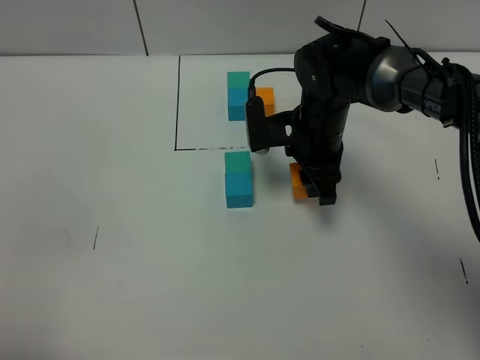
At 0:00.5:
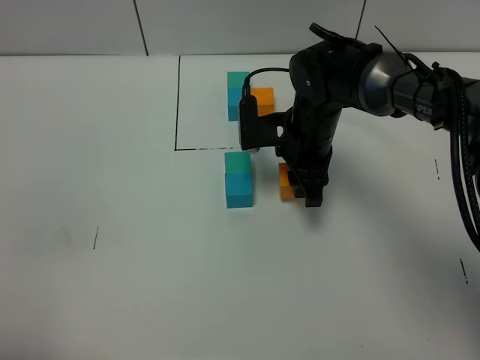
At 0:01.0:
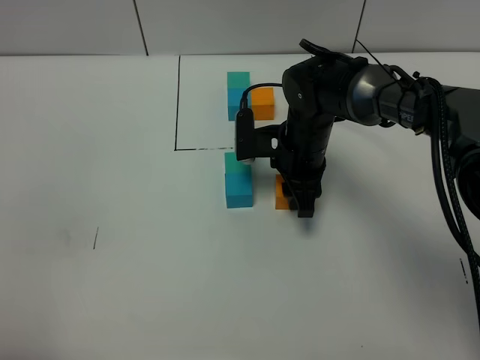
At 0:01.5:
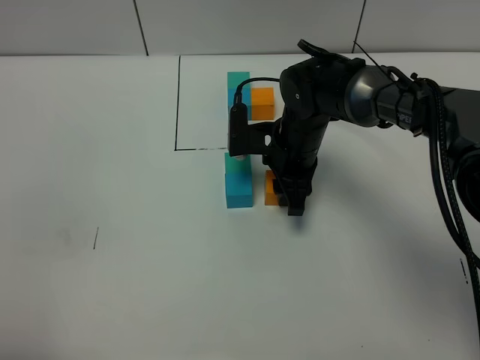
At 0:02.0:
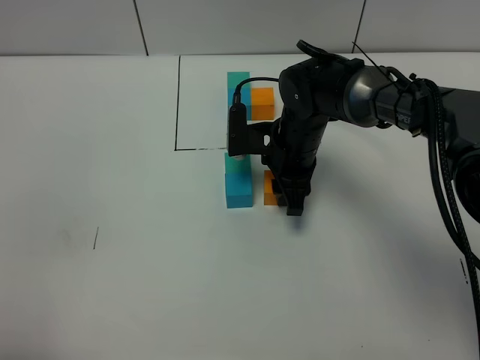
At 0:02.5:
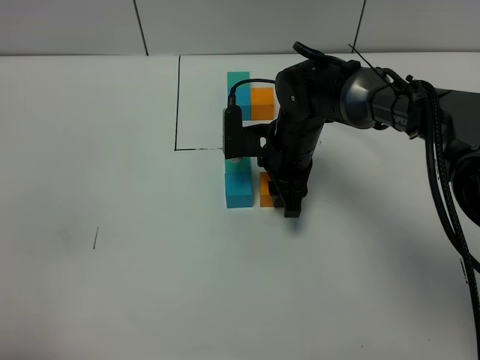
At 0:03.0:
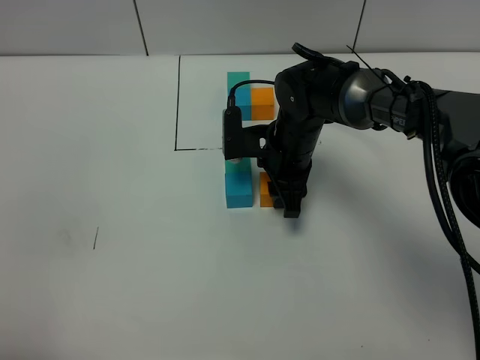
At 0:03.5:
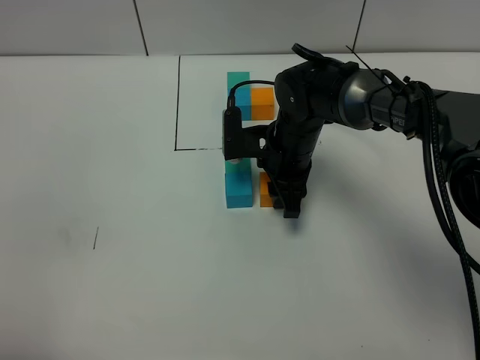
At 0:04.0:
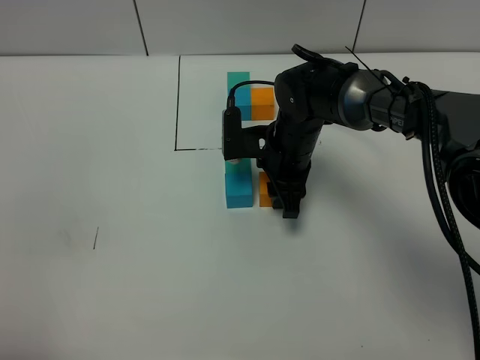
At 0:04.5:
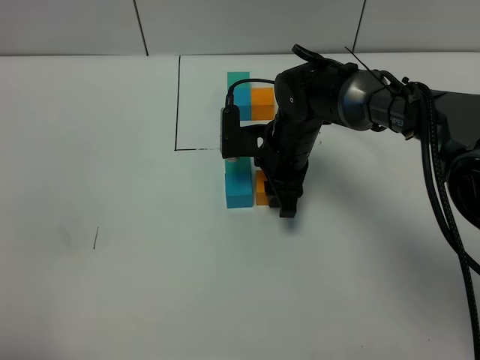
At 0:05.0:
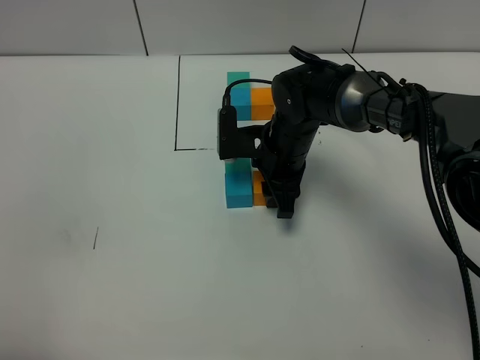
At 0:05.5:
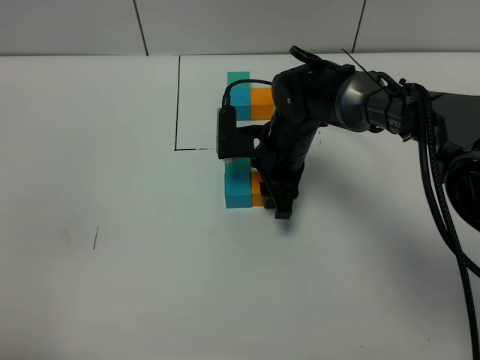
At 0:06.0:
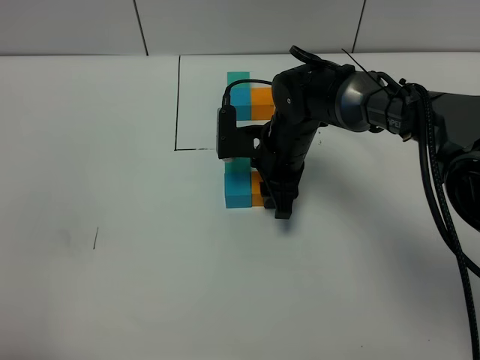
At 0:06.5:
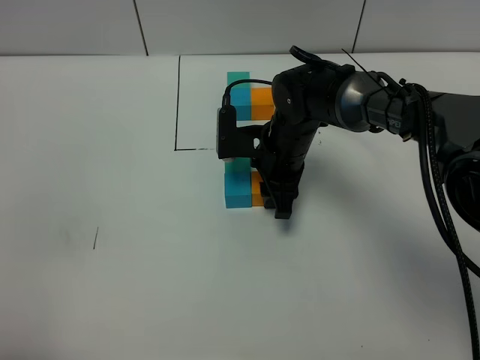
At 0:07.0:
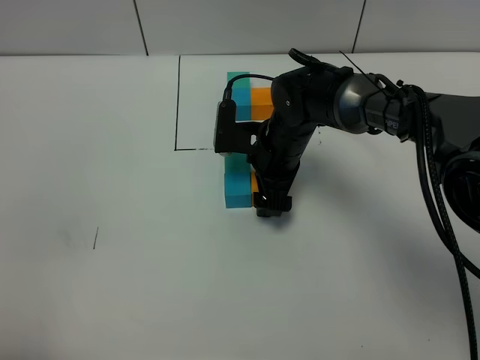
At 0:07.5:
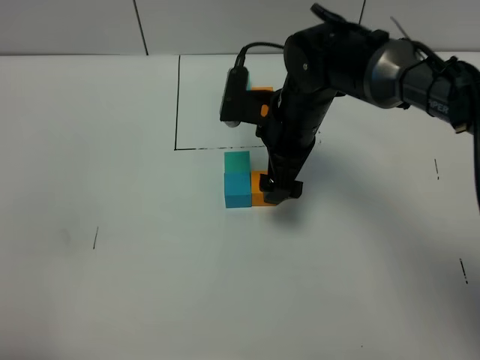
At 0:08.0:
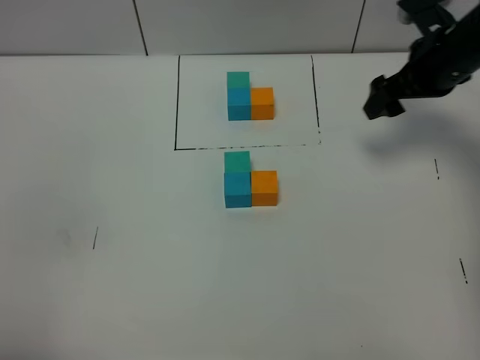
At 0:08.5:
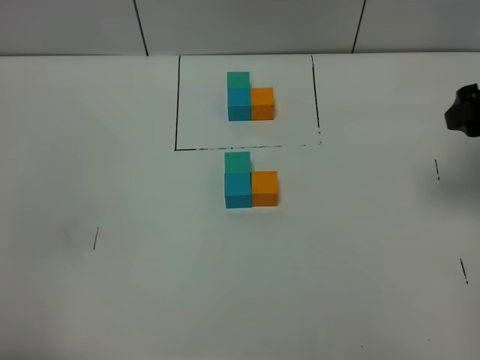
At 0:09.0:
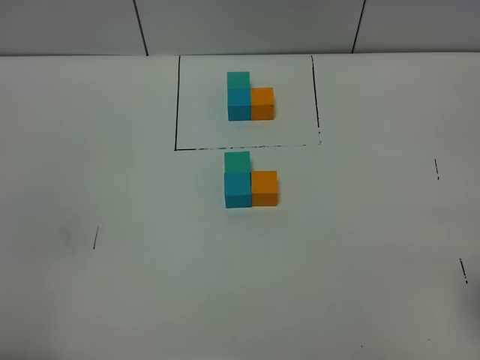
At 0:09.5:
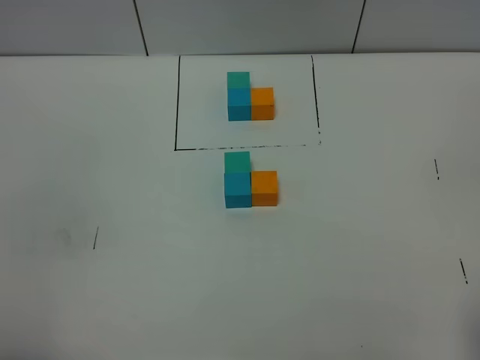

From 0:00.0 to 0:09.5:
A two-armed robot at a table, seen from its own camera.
Task of the whole recording: According to the building block template in front, assemble the scattered blocks together.
Step, from 0:00.0 to 0:07.0: Put the orange build block on the right of the blue build block.
From 0:00.0 to 0:02.0: There are only small adjustments of the grippers.
From 0:02.0 to 0:04.0: Both grippers stay put.
From 0:04.0 to 0:05.5: The two grippers keep their place.
From 0:05.5 to 0:07.5: The right gripper is displaced upward by approximately 10 cm, and opens up.
From 0:07.5 to 0:09.5: The right gripper travels backward and to the right by roughly 40 cm.

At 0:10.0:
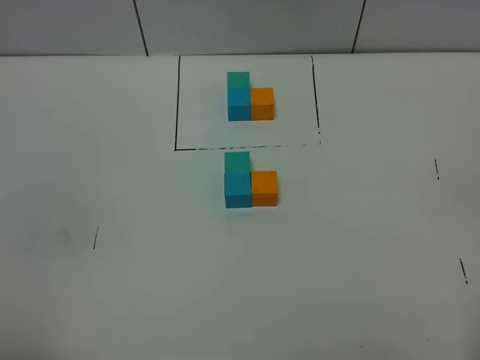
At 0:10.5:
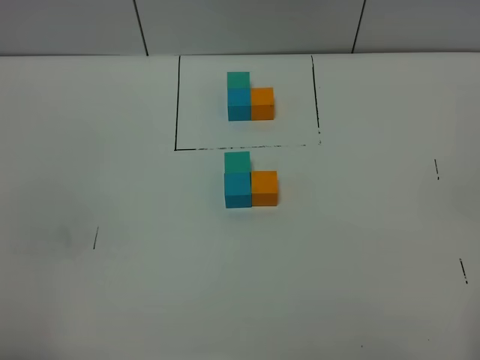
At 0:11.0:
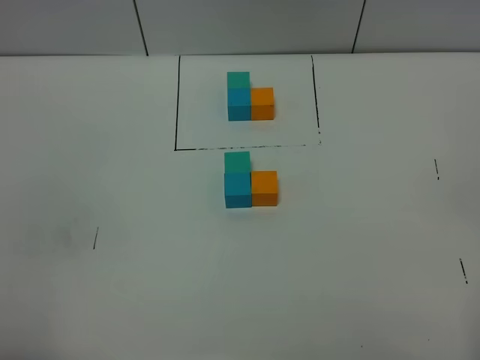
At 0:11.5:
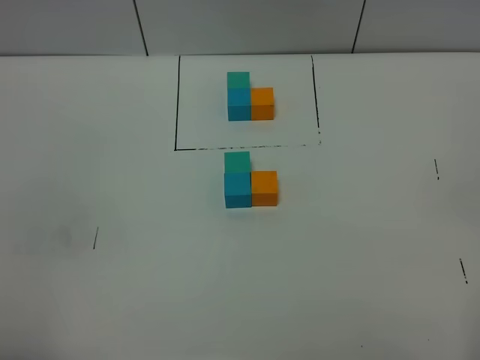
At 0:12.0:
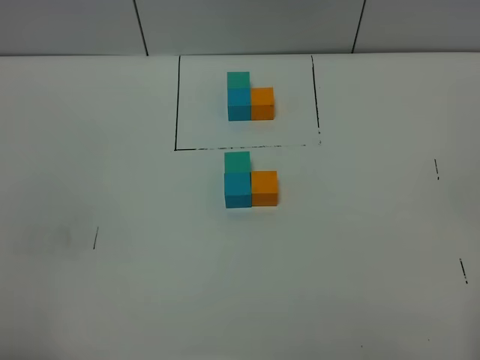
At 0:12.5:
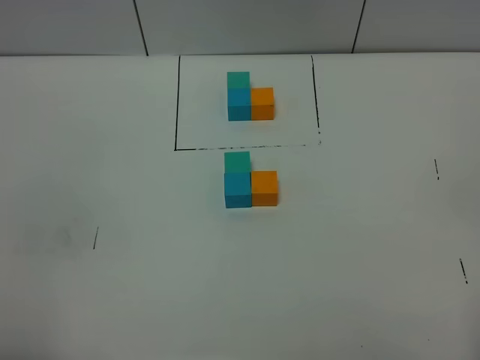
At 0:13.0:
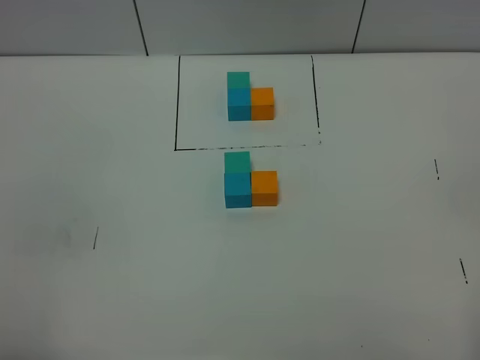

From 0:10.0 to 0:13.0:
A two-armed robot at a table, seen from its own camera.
Task of the whole recording: According to the building block template in front, assemble the scattered blocks together.
From 0:11.5 to 0:13.0: The two grippers keep their place.

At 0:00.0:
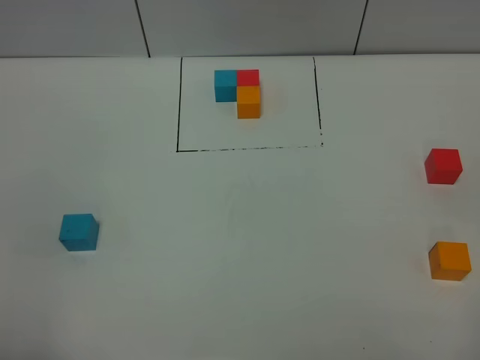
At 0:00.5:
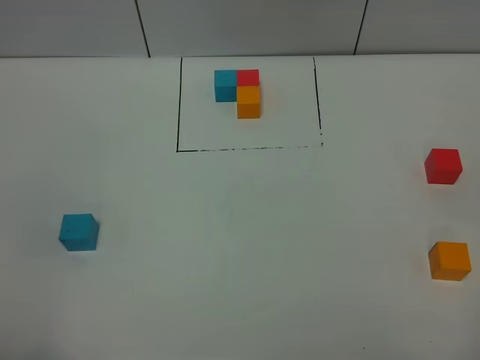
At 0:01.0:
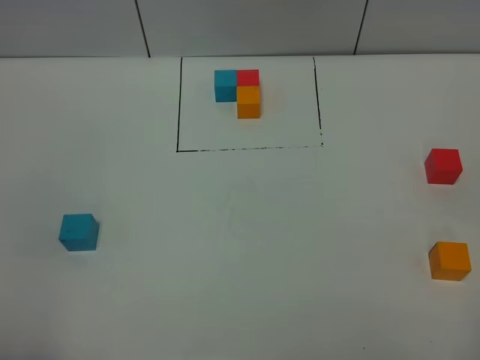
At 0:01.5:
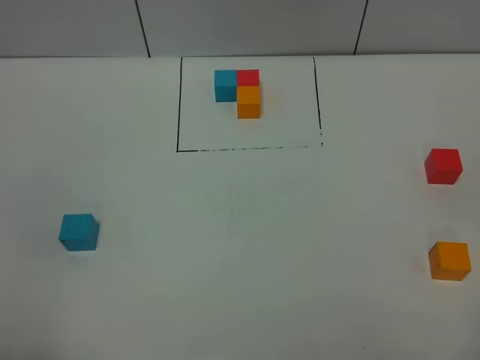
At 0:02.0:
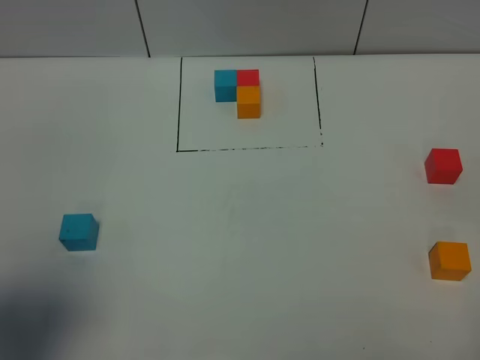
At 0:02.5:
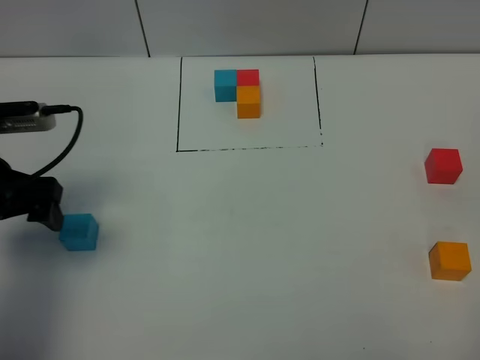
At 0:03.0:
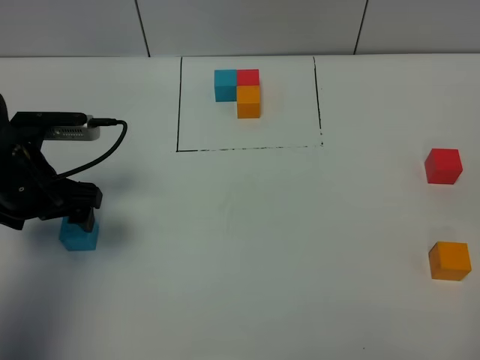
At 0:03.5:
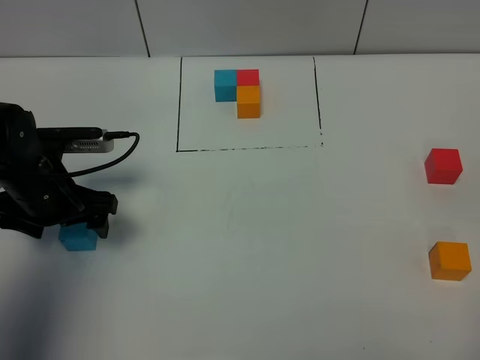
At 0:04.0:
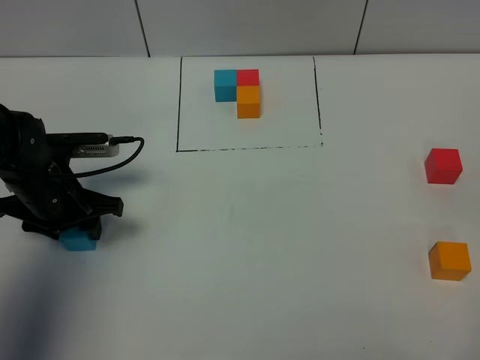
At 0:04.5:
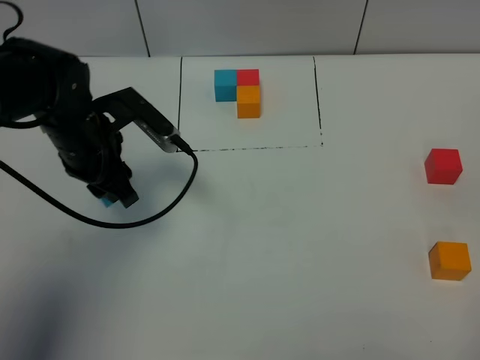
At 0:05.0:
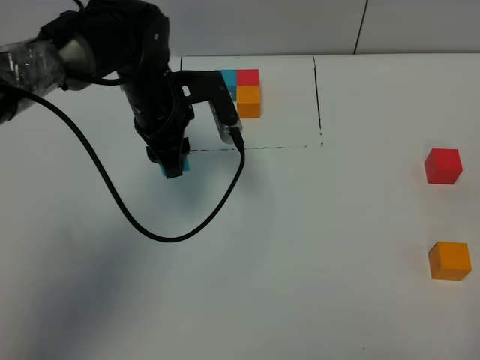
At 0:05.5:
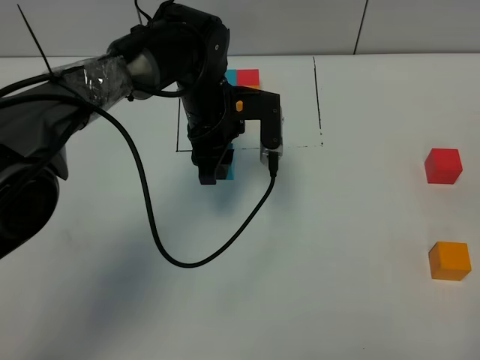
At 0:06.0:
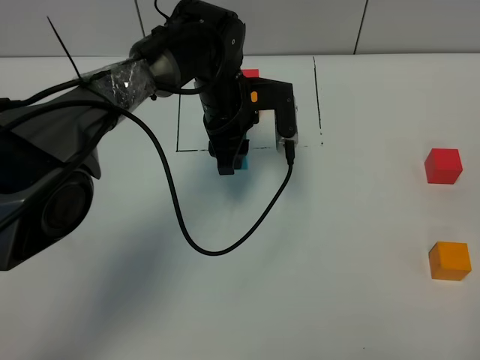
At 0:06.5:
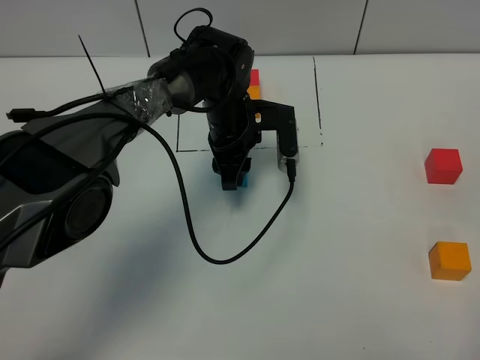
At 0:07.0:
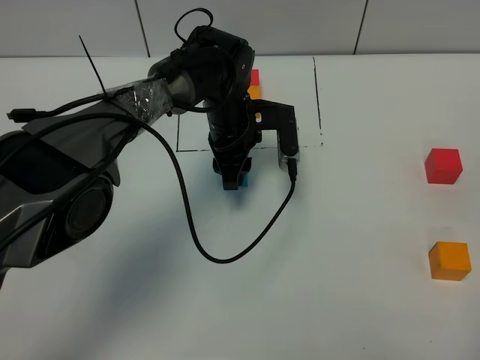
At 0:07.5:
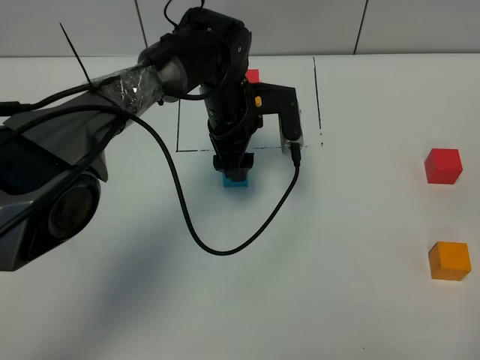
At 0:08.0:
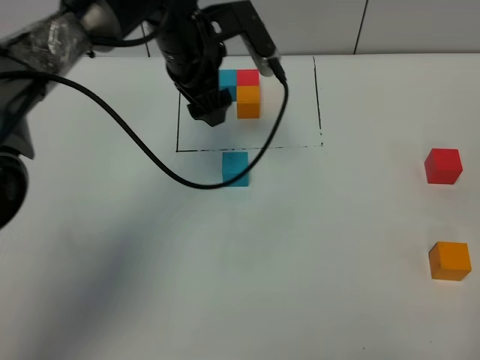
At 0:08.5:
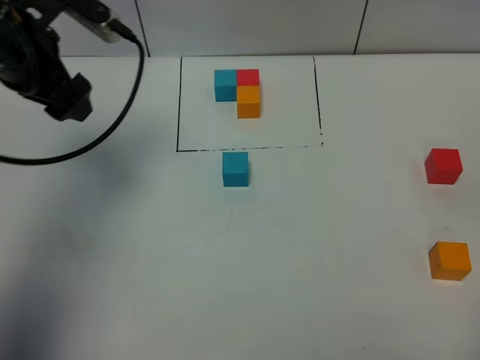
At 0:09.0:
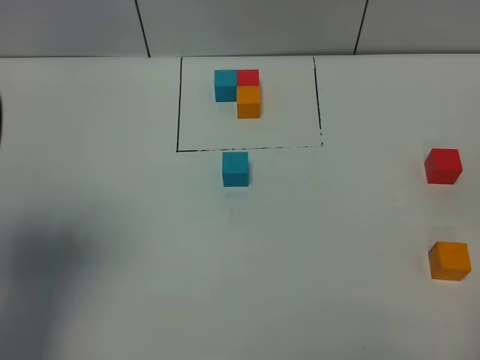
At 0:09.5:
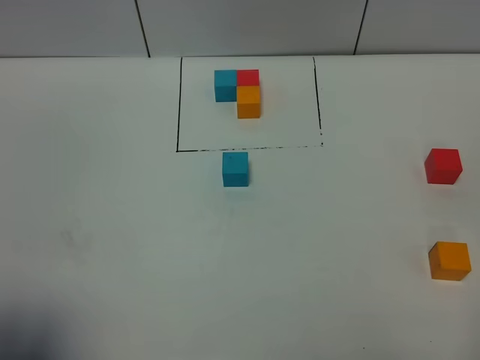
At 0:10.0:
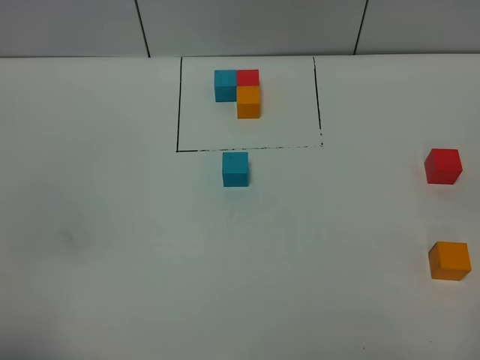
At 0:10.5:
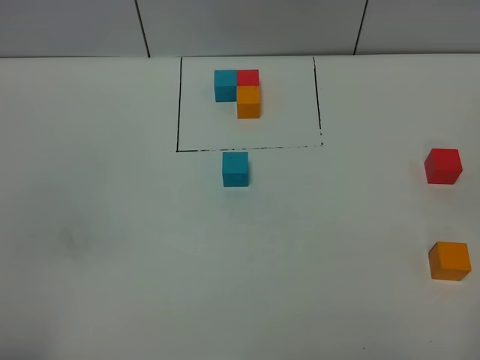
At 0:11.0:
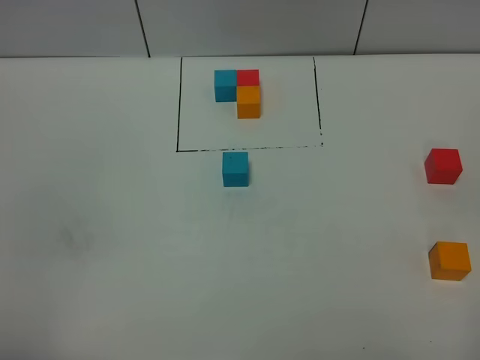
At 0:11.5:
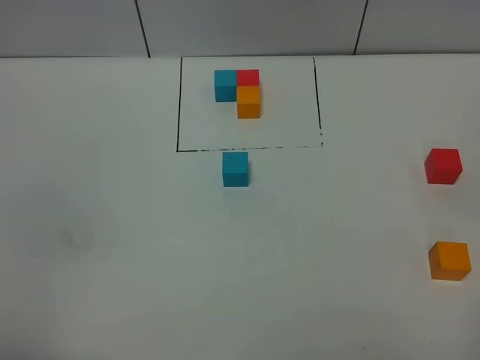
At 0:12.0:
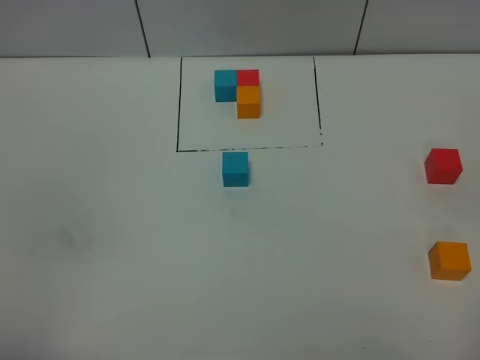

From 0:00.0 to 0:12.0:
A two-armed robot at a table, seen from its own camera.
Task of the whole recording: According to the building block template in front, assemble the scattered blocks together.
Step, from 0:00.0 to 0:07.0: Put the blue build block in the center of the table.
From 0:00.0 to 0:02.0: The left gripper heads forward, covering approximately 10 cm, and opens.
From 0:02.0 to 0:04.0: The left gripper is displaced forward and downward by about 25 cm, and closes.
From 0:04.0 to 0:06.0: The left gripper shifts about 25 cm to the right and forward.
From 0:06.0 to 0:08.0: The left gripper is displaced upward and to the left by some 10 cm, and opens.
From 0:08.0 to 0:10.0: The left gripper goes roughly 50 cm backward and to the left.

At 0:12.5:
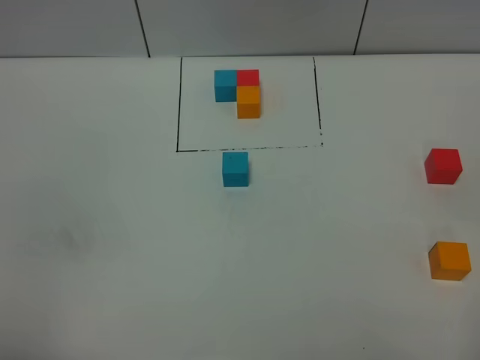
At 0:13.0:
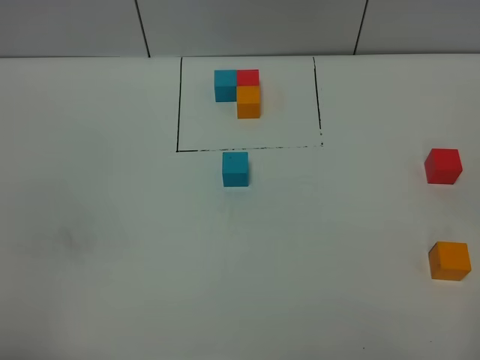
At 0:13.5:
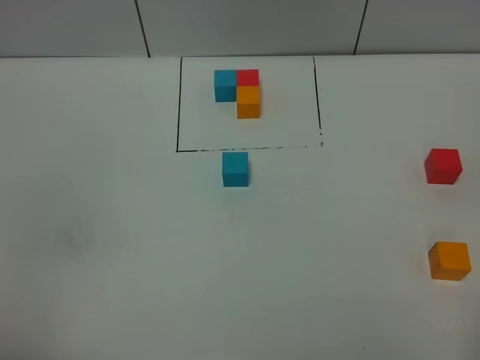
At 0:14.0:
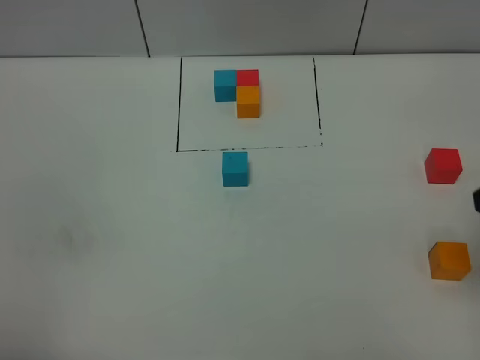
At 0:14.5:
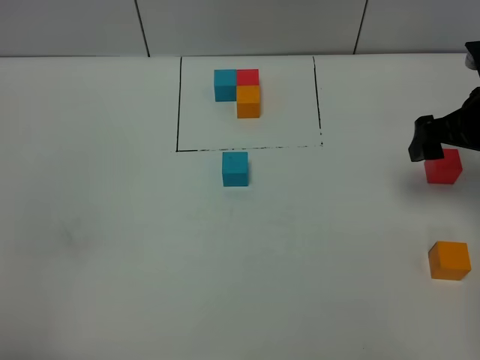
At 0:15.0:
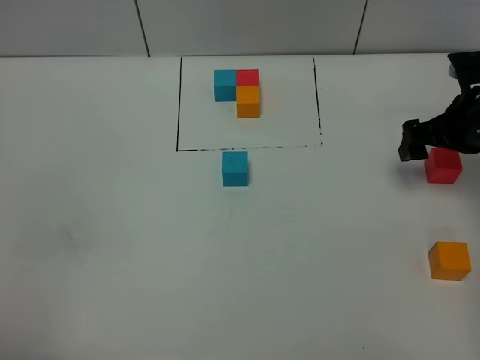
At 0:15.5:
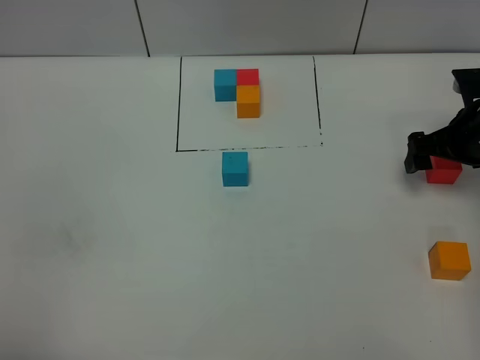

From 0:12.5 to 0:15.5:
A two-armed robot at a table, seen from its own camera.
Task of the whole recording: According to the building block template in front, assemble the scattered blocks together.
From 0:14.0 to 0:15.5: The right gripper moves forward and downward, approximately 25 cm.
